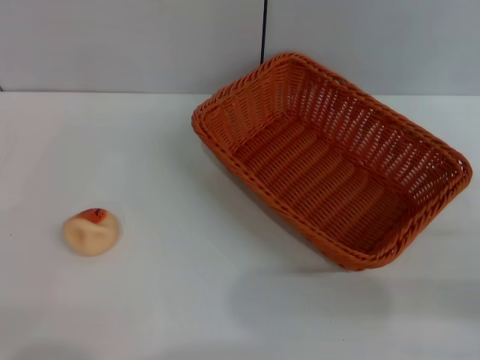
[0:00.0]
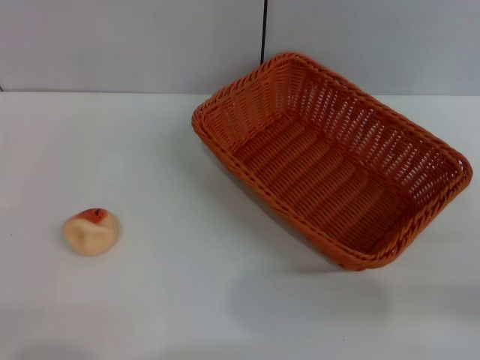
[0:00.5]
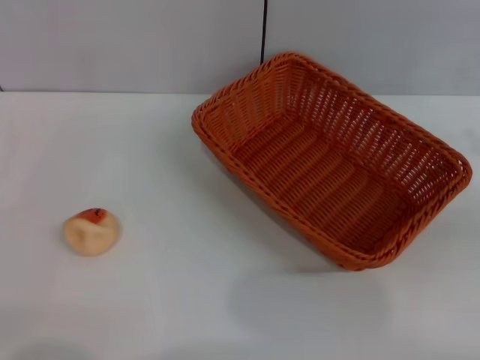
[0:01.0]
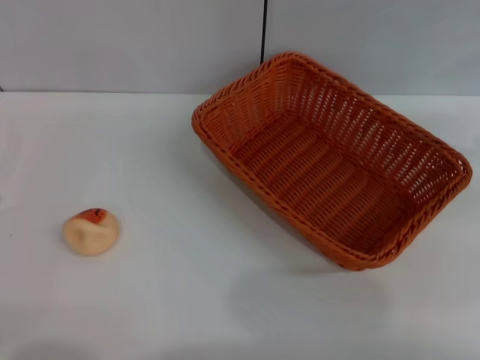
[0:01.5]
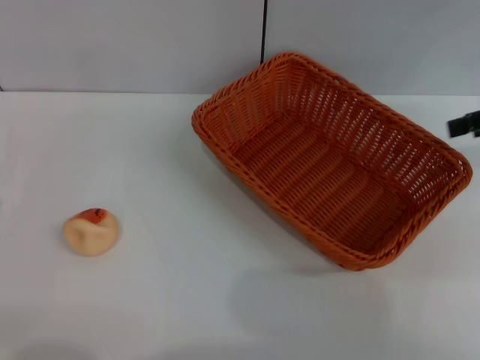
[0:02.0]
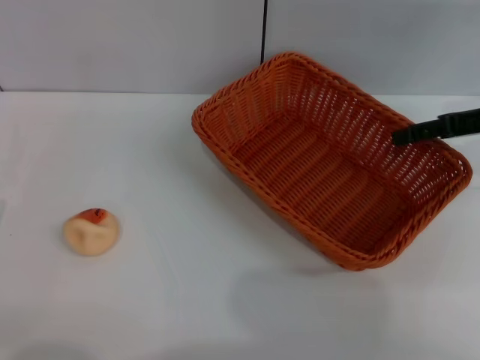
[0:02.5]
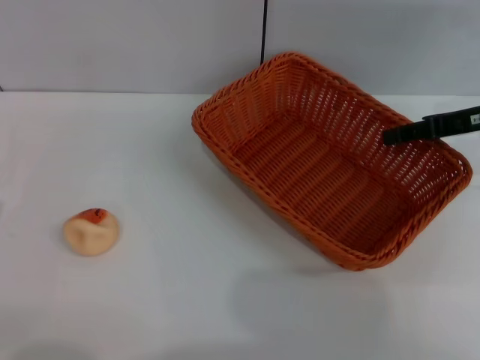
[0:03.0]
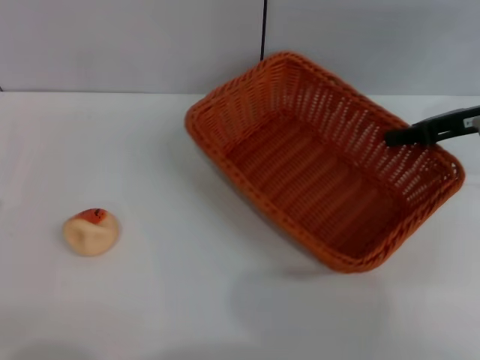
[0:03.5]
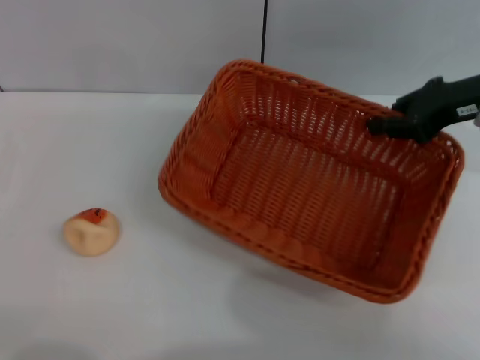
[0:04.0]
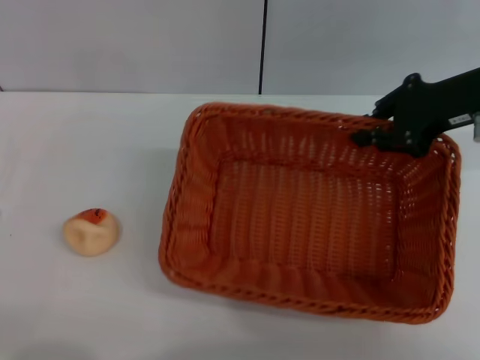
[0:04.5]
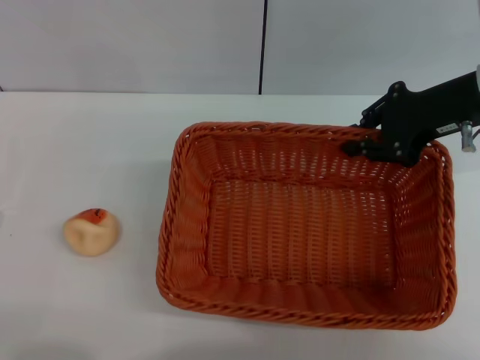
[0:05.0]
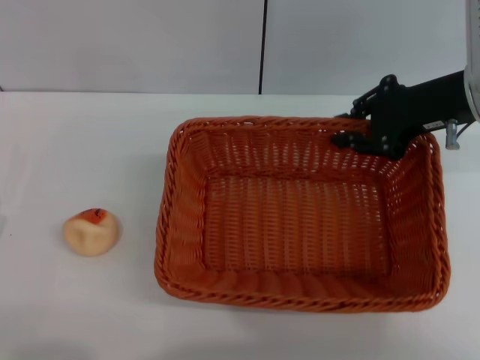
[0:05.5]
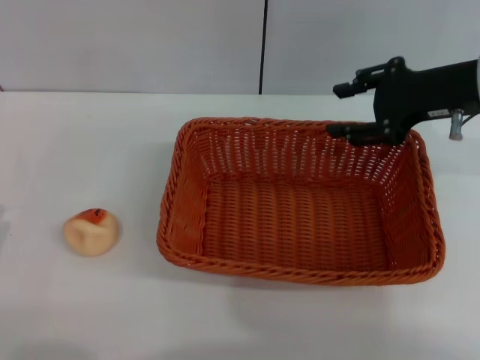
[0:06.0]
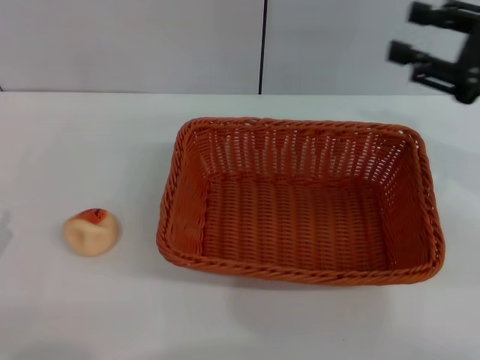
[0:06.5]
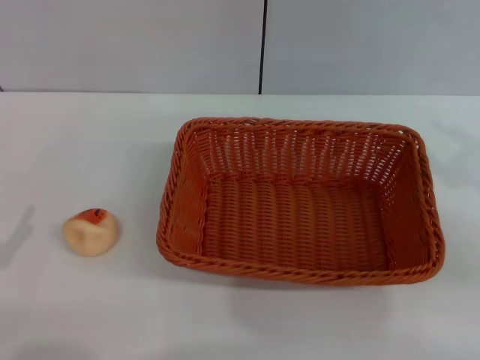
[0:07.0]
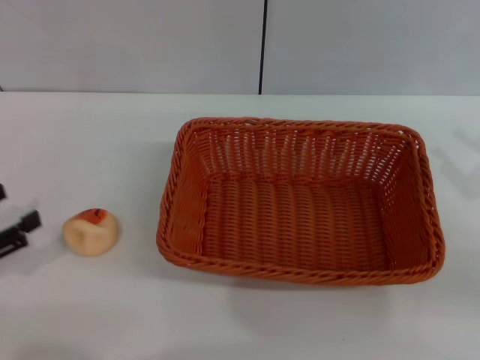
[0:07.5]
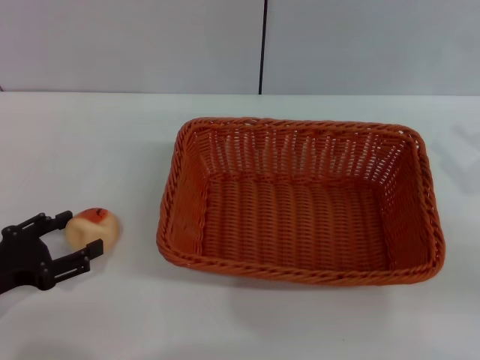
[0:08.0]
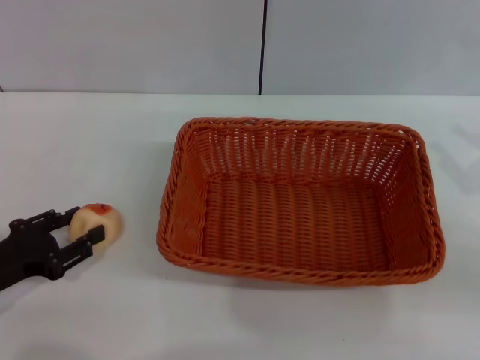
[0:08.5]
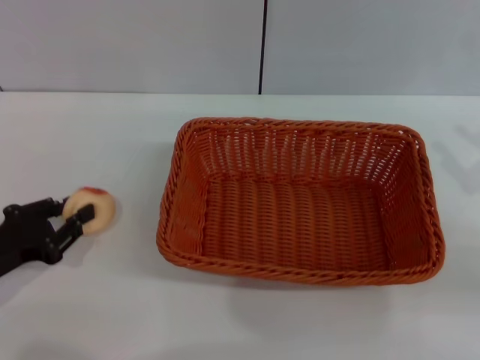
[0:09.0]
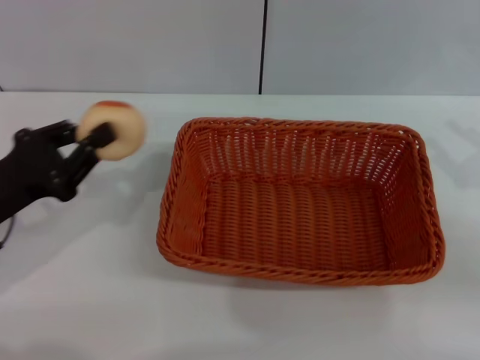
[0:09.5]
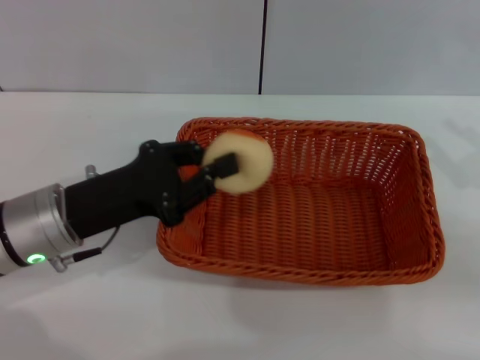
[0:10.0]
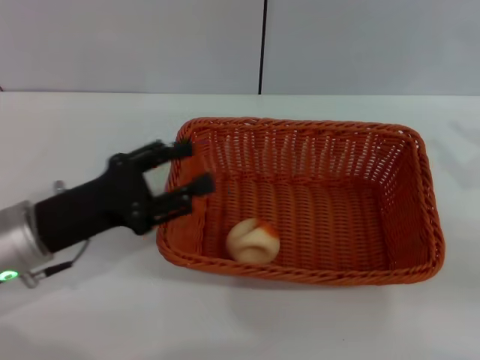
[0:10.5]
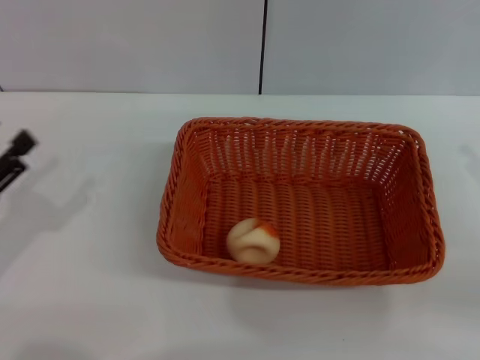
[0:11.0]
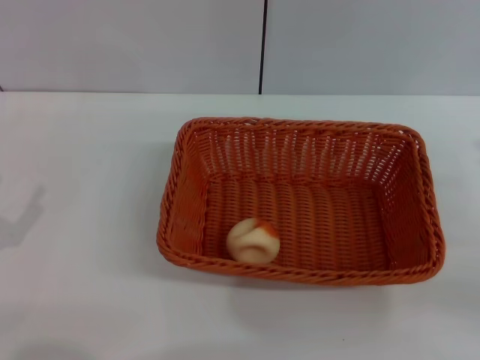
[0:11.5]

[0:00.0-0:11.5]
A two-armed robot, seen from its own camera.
Step, 0:00.0 to 0:06.0: Move the basket to the center of view with the right gripper.
Step, 0:06.5 to 0:09.0: Pick up the egg yolk pastry with the left gripper.
Step, 0:09.5 to 0:10.5: Place the egg yolk pastry into the basket with the left gripper.
0:00.0 to 0:02.0: The right gripper moves forward and upward, approximately 20 cm.
0:02.0 to 0:04.0: The right gripper heads to the left, covering about 10 cm, and closes up.
0:04.0 to 0:06.0: The right gripper opens up.
0:06.0 to 0:07.5: The right gripper is displaced backward, to the right and downward by roughly 20 cm. Meanwhile the left gripper moves forward and upward, some 10 cm.
0:07.5 to 0:09.5: The left gripper moves to the right and forward, about 10 cm, and closes its fingers.
0:09.5 to 0:11.5: The left gripper is displaced backward and to the left by some 10 cm, and opens.
